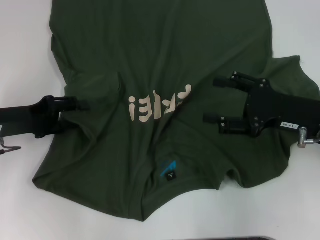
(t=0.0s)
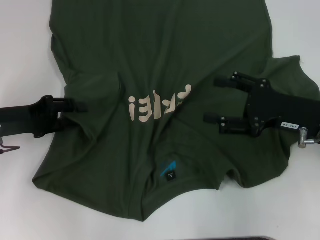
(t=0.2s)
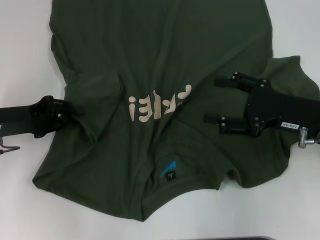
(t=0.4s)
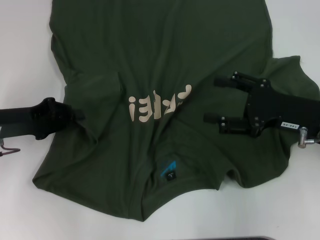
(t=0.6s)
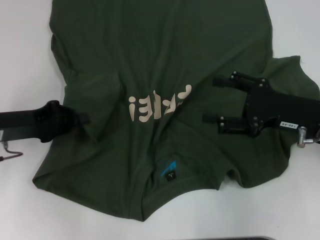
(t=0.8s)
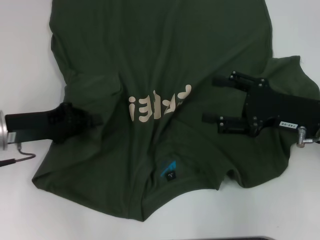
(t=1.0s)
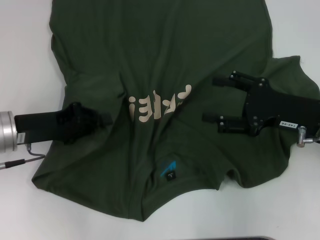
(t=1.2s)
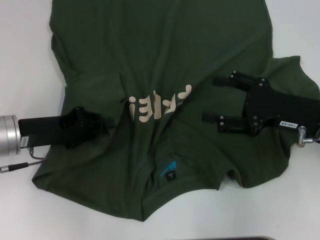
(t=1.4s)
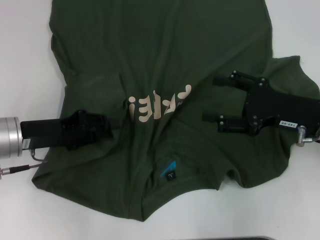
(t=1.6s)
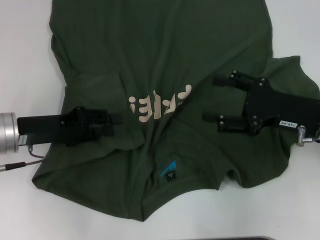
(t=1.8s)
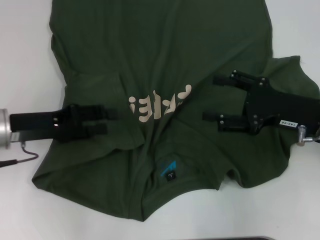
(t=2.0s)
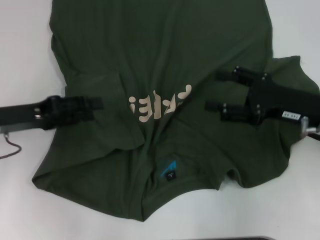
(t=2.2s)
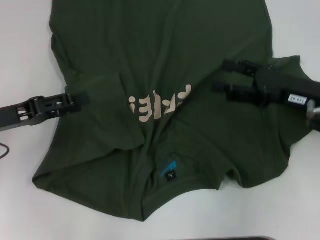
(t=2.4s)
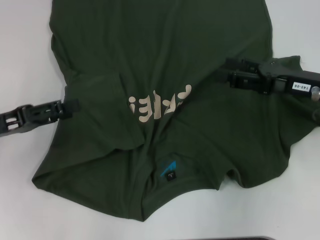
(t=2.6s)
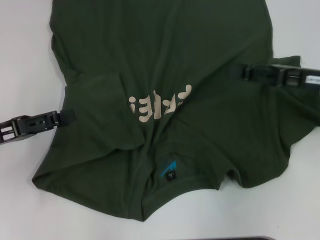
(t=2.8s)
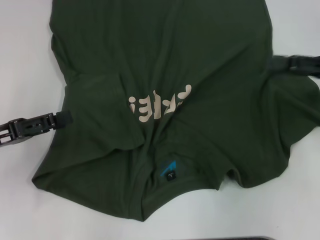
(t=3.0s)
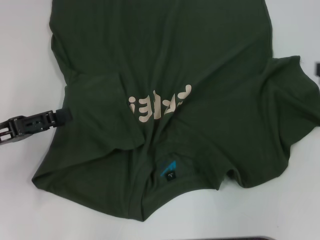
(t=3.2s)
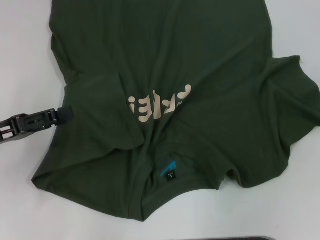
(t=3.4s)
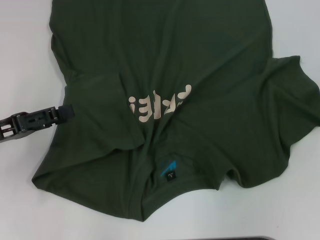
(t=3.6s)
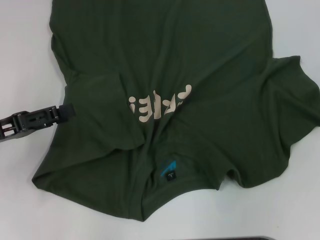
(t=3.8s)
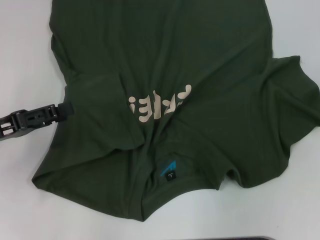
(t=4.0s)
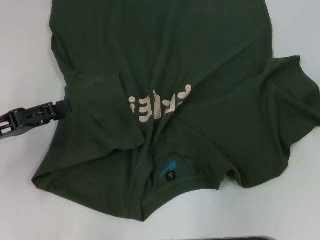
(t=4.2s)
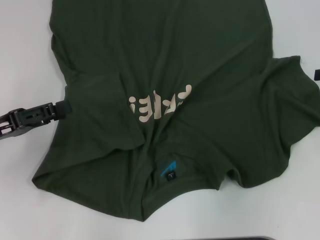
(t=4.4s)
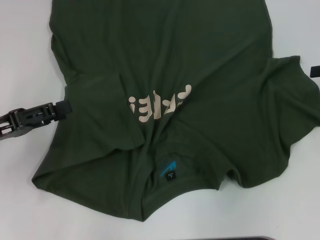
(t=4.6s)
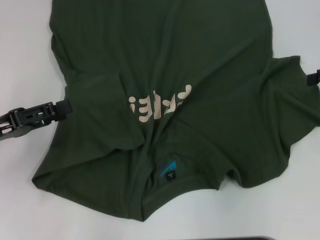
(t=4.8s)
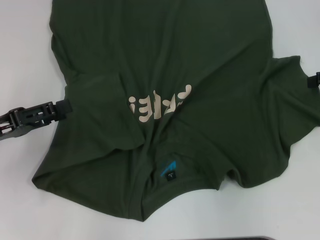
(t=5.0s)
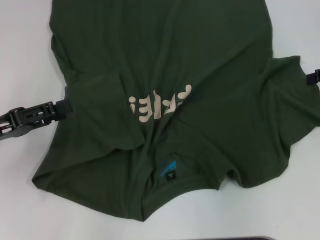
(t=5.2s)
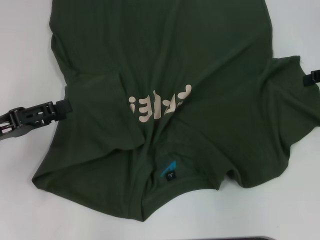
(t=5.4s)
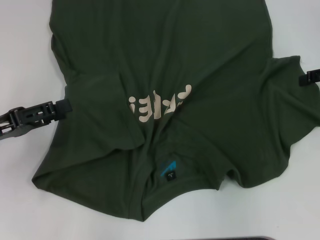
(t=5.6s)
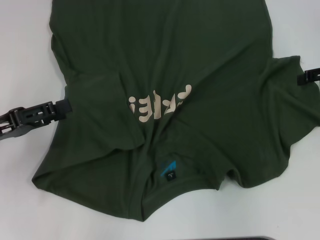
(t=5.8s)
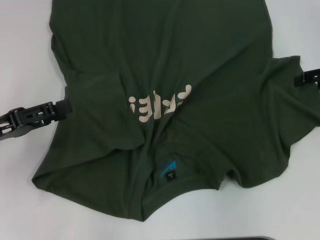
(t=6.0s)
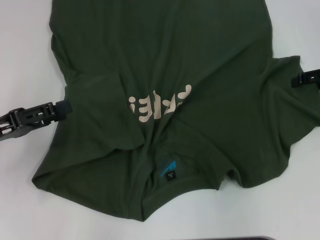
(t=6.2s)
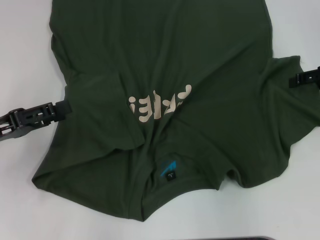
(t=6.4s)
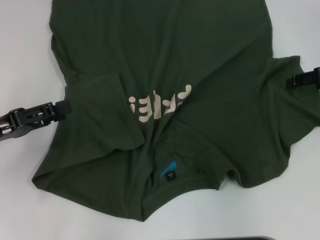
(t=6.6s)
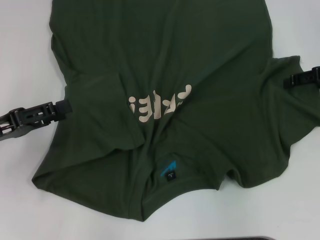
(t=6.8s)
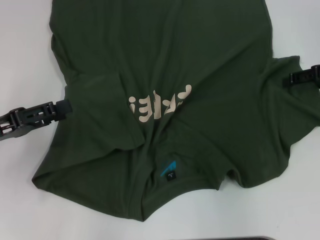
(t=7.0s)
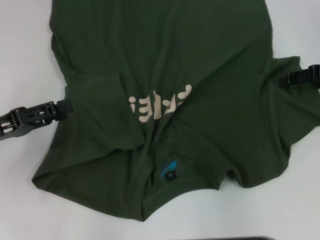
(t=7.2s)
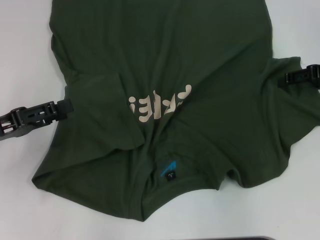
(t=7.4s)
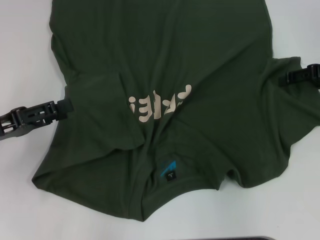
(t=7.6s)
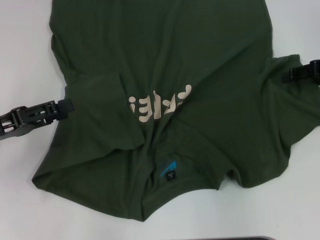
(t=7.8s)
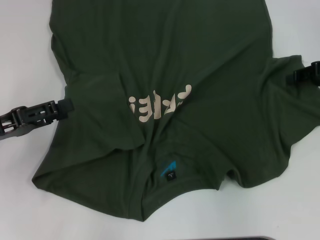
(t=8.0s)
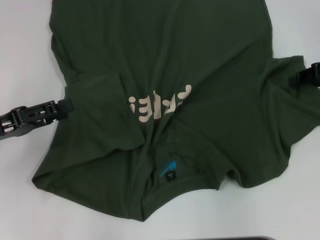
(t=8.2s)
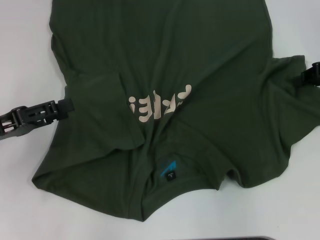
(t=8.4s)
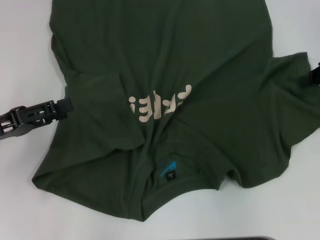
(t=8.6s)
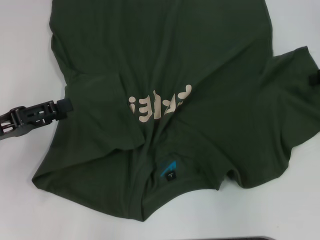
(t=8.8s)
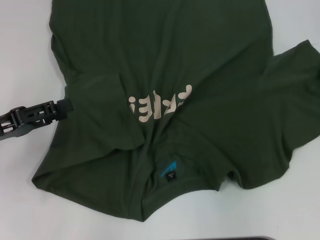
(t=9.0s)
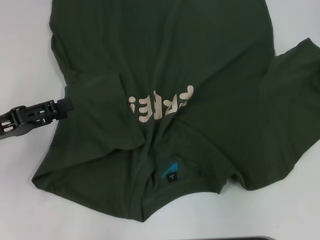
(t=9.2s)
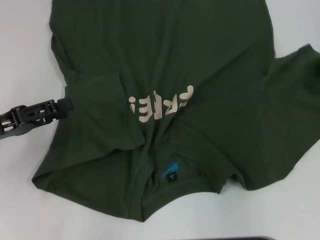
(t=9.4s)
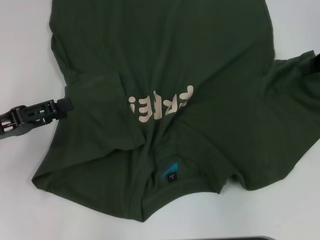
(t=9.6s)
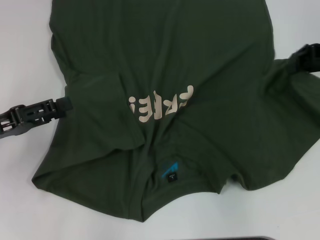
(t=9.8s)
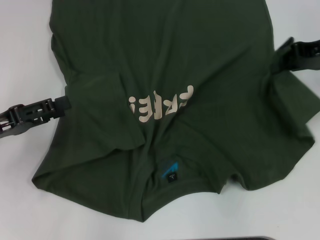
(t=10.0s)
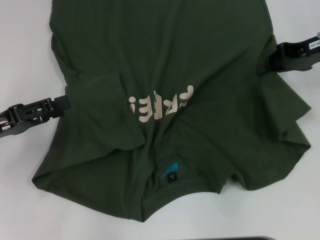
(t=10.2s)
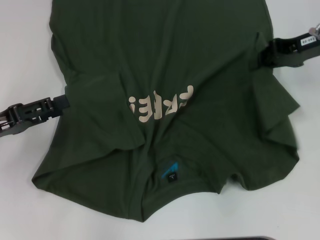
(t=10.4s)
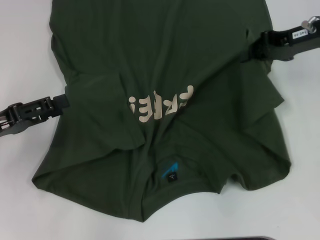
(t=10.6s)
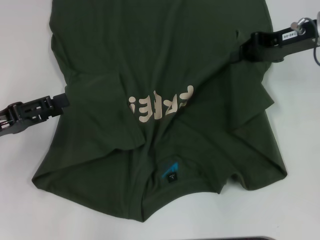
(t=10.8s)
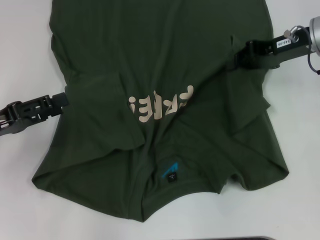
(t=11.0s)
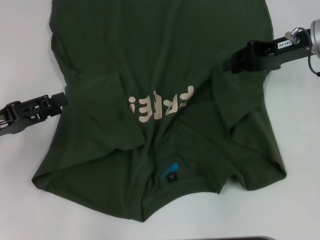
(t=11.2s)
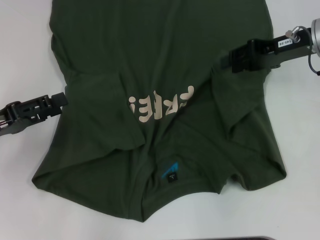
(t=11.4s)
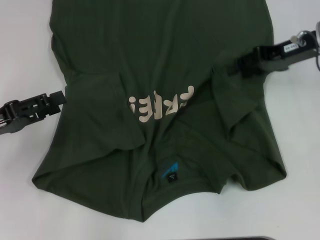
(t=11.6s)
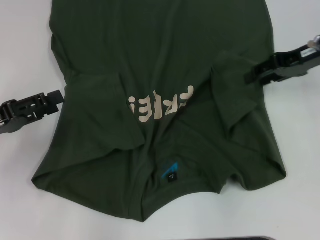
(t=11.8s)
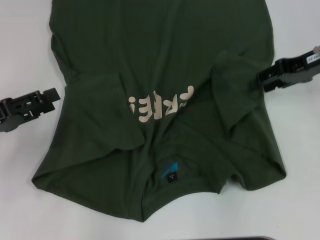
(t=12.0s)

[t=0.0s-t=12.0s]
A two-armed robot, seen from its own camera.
Step, t=0.0s to t=11.4s: Fold the bottom right sleeve with your right hand.
t=0.0s to t=1.6s: The left gripper closes up.
t=1.6s to t=3.0s: The right gripper moves to the right and upward, approximately 10 cm, while the left gripper is displaced to the left by approximately 5 cm, and opens up.
t=3.0s to t=4.4s: The right gripper travels to the right by some 5 cm.
t=7.6s to t=9.0s: The right gripper closes up.
t=9.0s to t=10.4s: The right gripper is displaced to the left by about 10 cm.
t=10.4s to t=12.0s: The right gripper opens up.

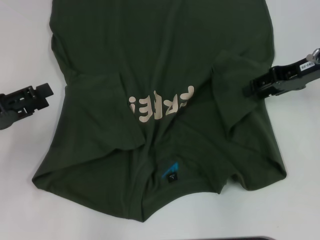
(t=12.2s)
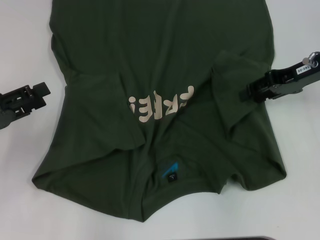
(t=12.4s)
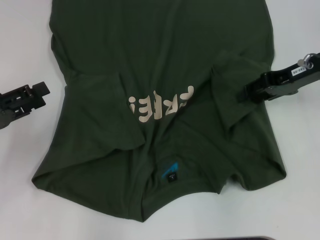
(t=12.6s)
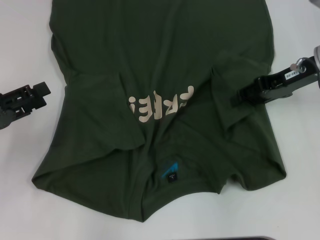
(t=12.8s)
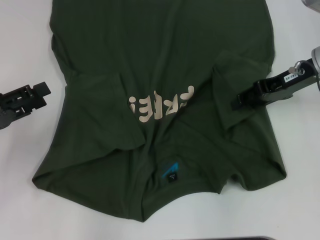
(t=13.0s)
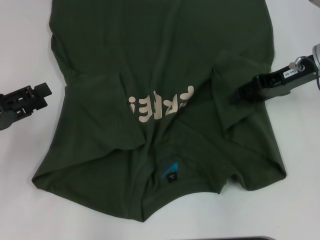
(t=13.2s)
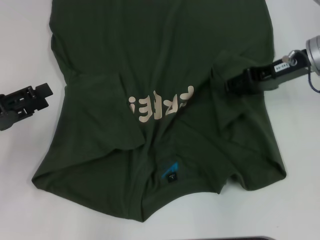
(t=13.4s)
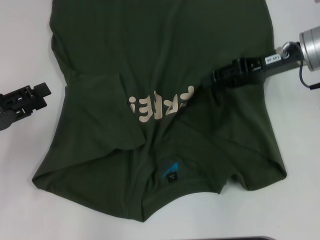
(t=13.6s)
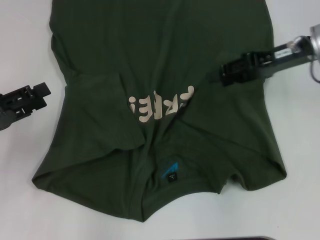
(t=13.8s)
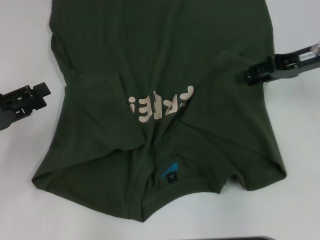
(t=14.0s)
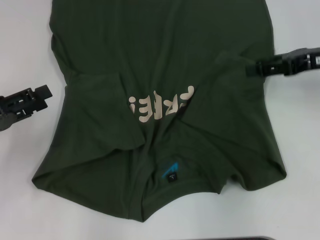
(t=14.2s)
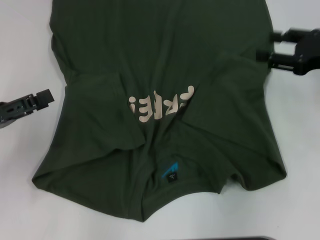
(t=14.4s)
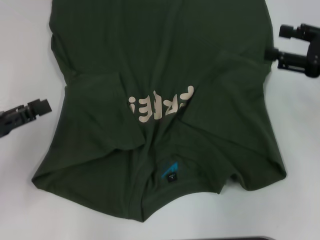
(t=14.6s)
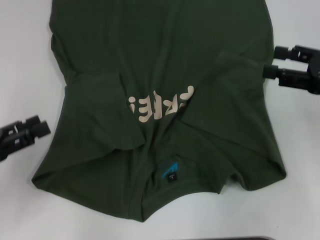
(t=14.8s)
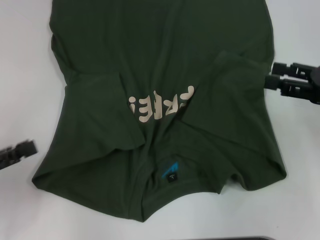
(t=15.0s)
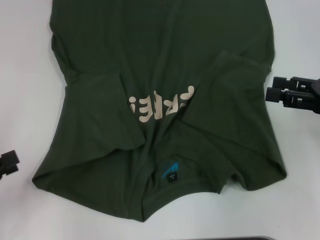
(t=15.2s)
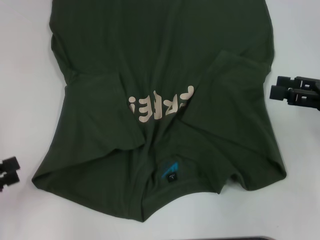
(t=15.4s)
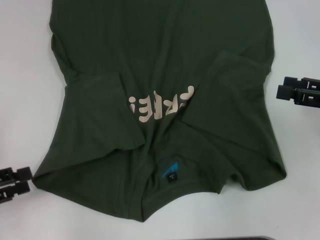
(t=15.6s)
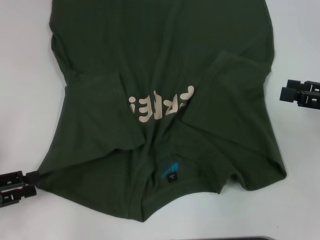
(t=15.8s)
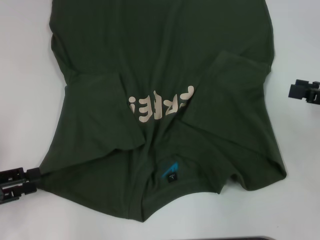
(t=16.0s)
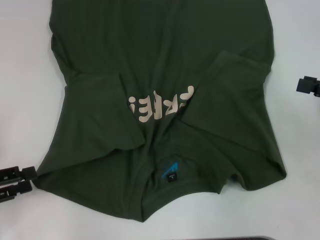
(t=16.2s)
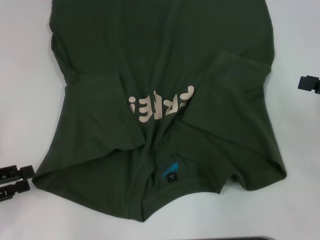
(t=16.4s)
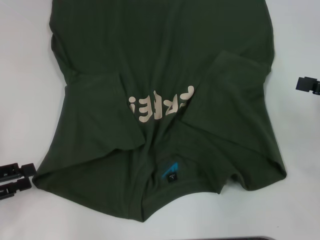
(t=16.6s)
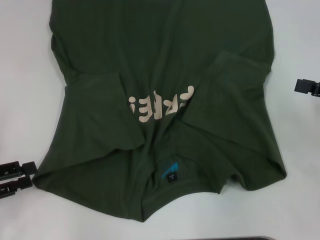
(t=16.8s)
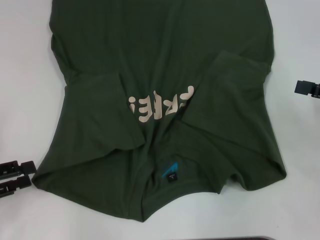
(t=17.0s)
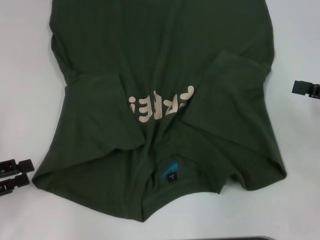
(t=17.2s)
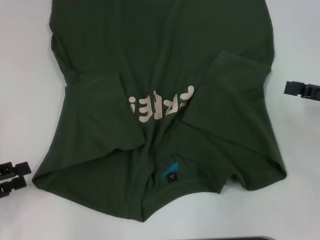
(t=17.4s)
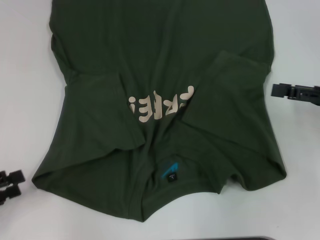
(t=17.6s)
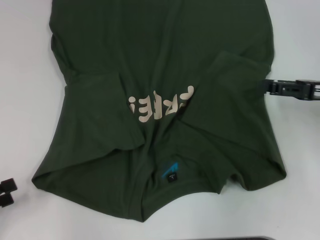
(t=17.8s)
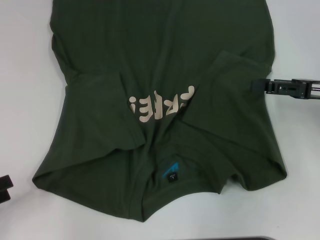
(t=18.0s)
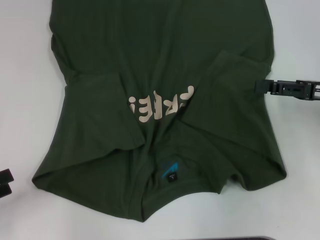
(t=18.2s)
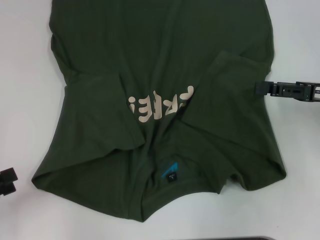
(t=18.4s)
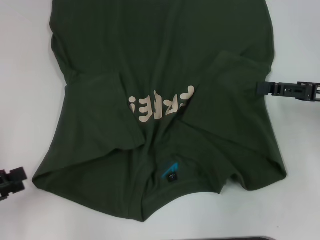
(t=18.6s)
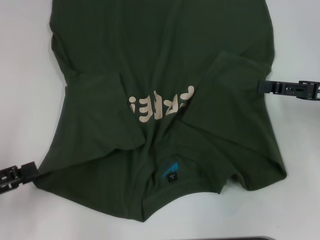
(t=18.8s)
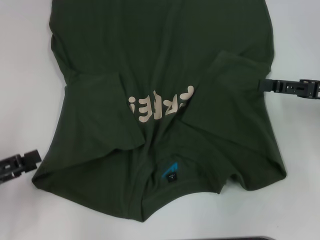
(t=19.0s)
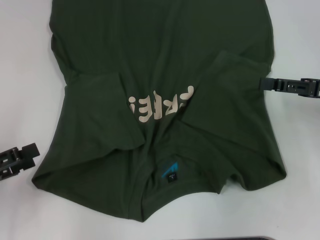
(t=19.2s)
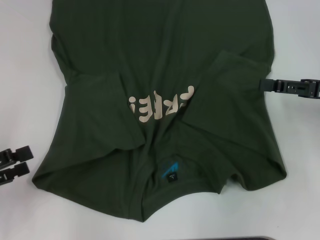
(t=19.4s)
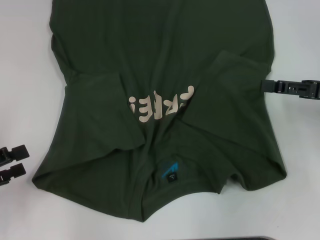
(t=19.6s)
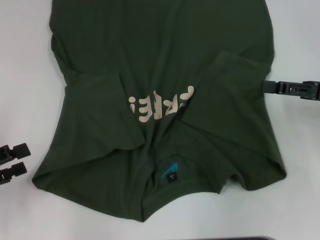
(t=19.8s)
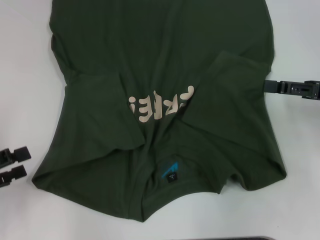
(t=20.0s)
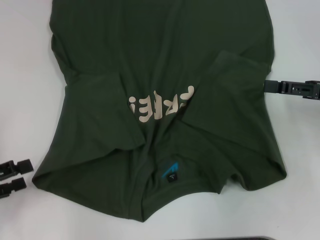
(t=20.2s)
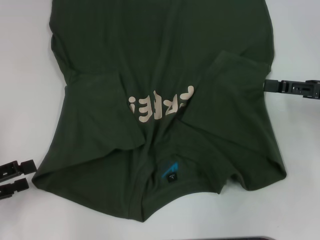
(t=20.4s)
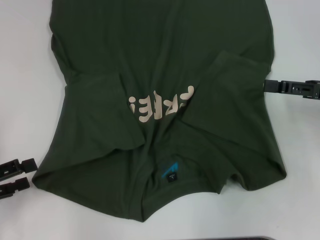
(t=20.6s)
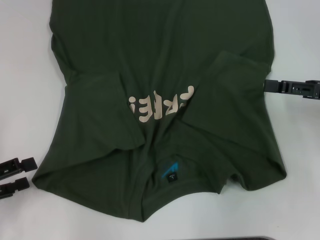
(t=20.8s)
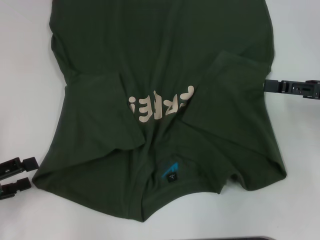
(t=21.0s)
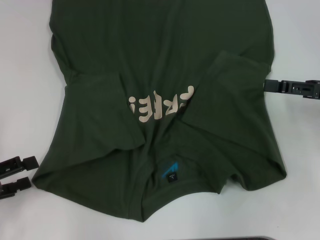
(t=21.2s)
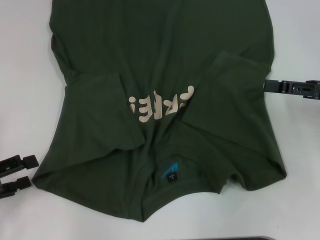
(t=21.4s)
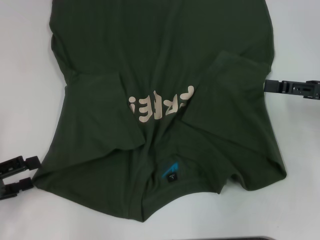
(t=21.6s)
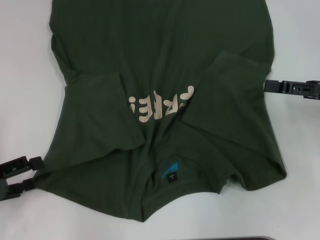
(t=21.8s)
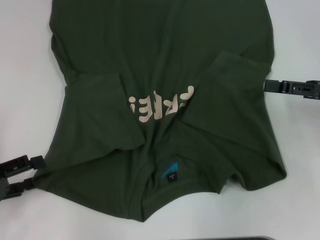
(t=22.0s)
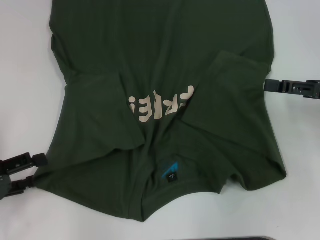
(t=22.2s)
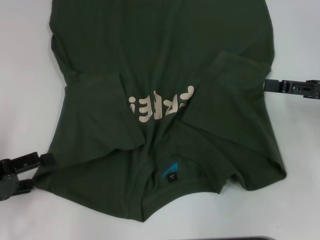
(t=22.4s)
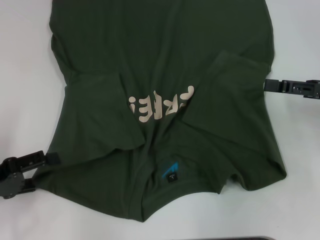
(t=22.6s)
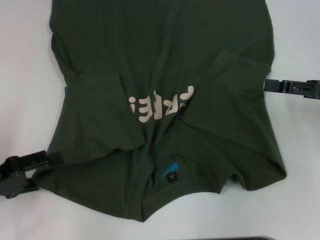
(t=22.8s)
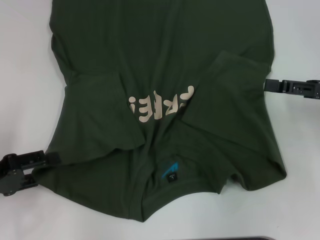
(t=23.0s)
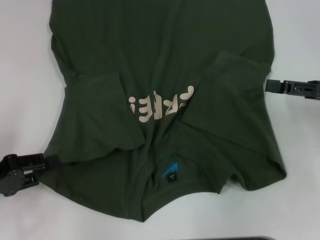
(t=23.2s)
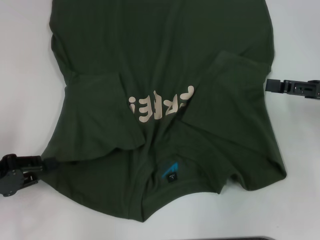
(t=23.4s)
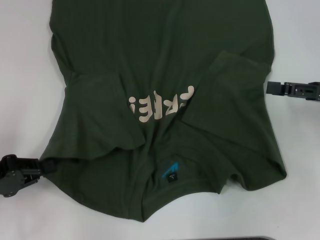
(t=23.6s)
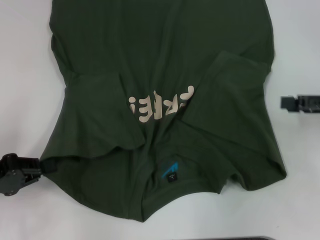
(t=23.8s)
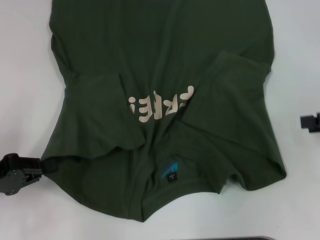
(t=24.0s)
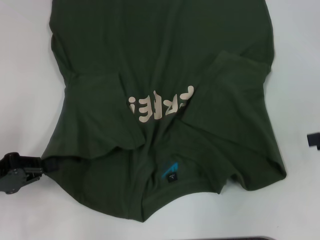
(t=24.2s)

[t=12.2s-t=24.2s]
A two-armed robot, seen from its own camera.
Step, t=12.2s to t=23.6s: Grab the bottom left corner with your left hand.
t=12.2s to t=13.8s: The grippers stay close to where they were, moving slightly.
t=13.8s to t=15.2s: The left gripper heads backward, covering roughly 10 cm, while the right gripper moves backward and to the right, some 15 cm.
t=15.2s to t=16.6s: There are only small adjustments of the grippers.
t=16.6s to t=18.2s: The right gripper moves approximately 5 cm.
t=18.2s to t=21.2s: The grippers stay close to where they were, moving slightly.
t=21.2s to t=22.6s: The grippers move only a little.
t=22.6s to t=24.2s: The right gripper changes place by approximately 5 cm; the left gripper closes up.
